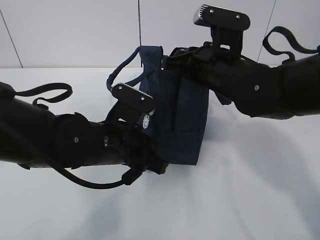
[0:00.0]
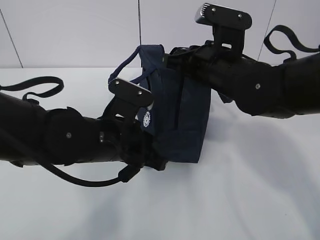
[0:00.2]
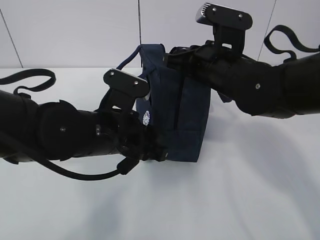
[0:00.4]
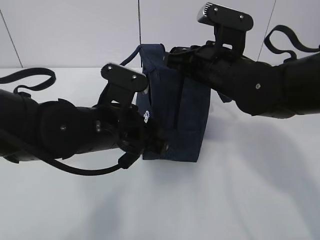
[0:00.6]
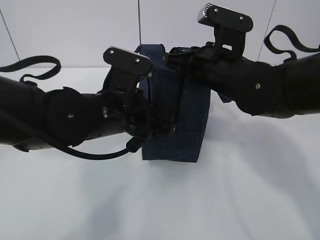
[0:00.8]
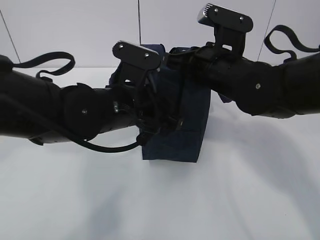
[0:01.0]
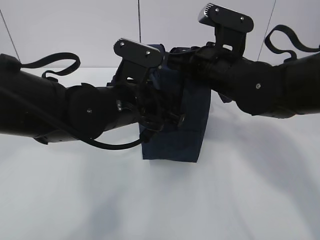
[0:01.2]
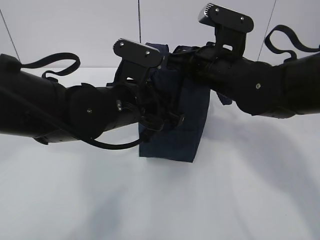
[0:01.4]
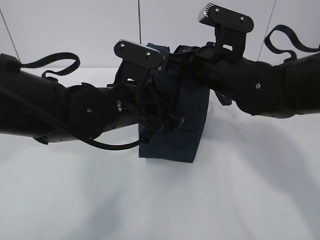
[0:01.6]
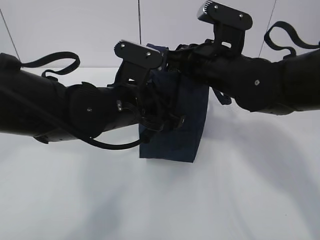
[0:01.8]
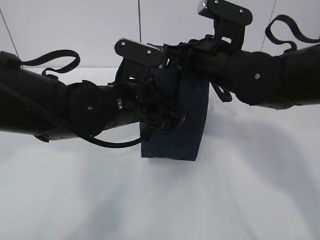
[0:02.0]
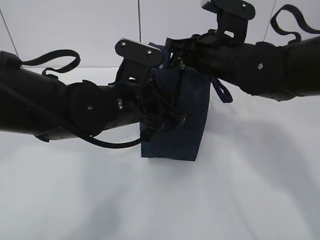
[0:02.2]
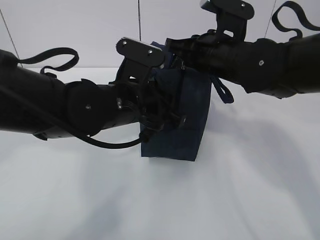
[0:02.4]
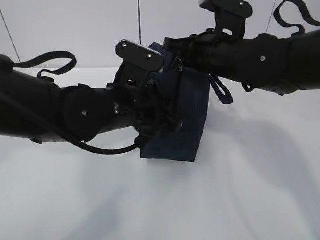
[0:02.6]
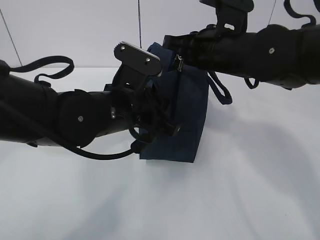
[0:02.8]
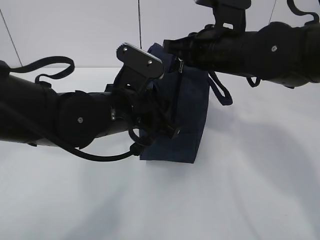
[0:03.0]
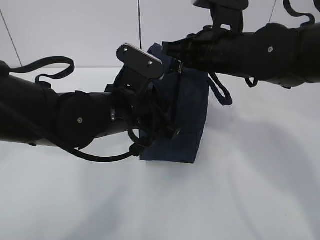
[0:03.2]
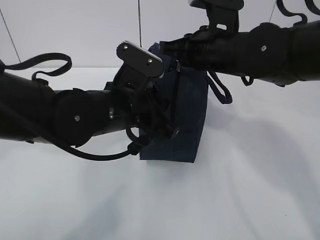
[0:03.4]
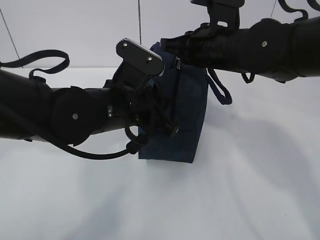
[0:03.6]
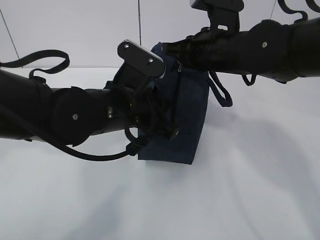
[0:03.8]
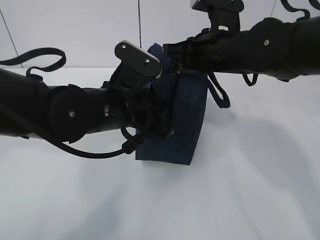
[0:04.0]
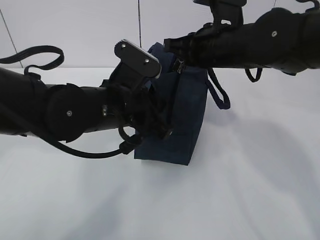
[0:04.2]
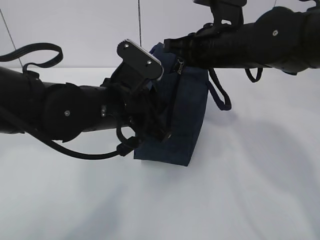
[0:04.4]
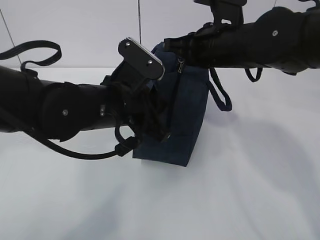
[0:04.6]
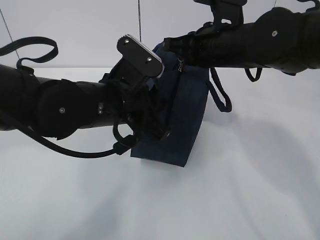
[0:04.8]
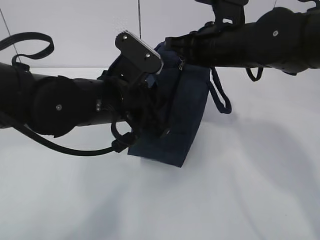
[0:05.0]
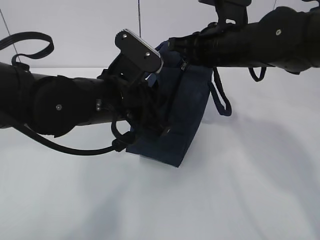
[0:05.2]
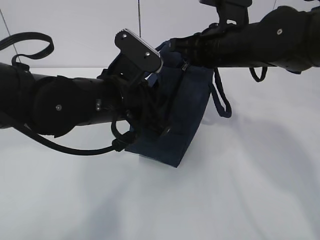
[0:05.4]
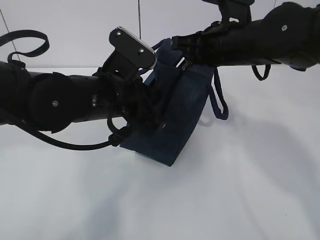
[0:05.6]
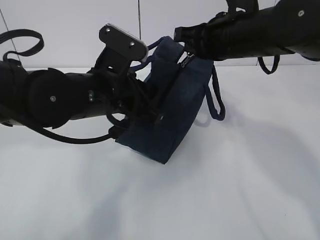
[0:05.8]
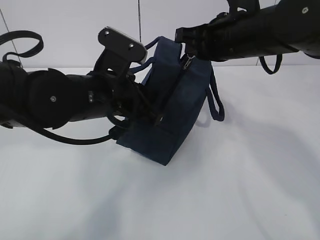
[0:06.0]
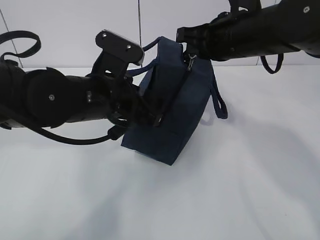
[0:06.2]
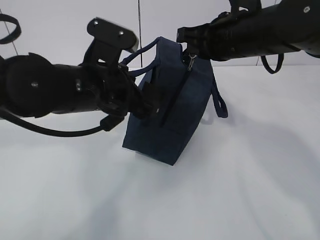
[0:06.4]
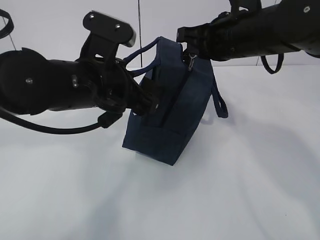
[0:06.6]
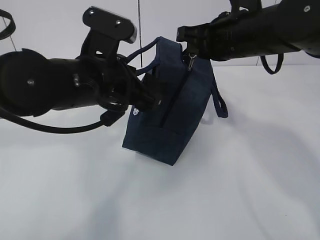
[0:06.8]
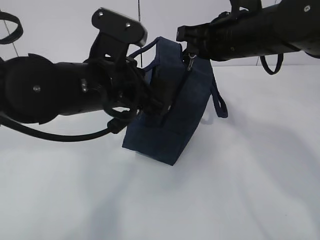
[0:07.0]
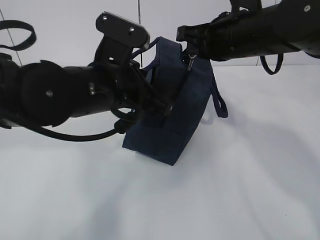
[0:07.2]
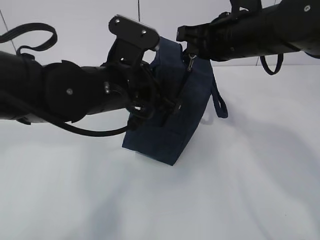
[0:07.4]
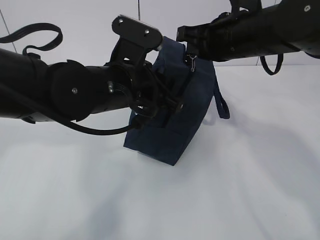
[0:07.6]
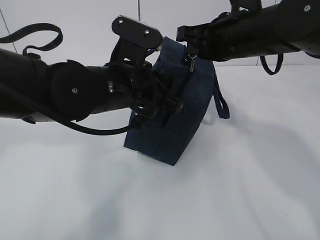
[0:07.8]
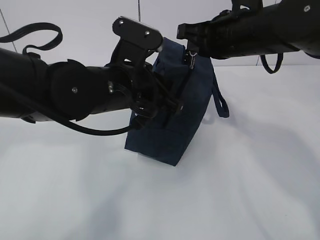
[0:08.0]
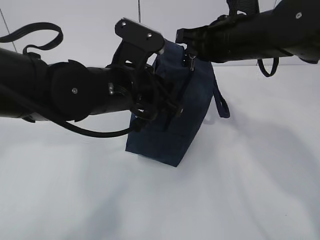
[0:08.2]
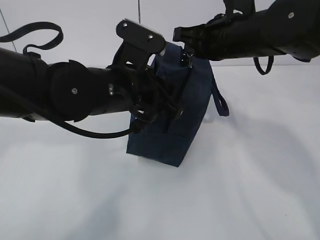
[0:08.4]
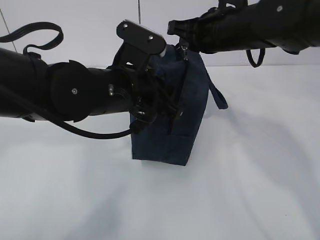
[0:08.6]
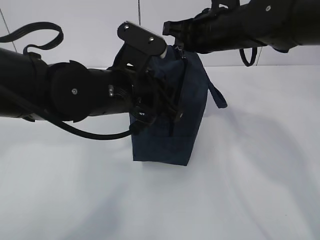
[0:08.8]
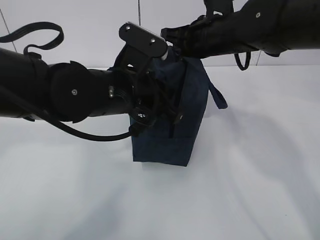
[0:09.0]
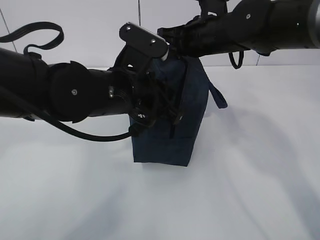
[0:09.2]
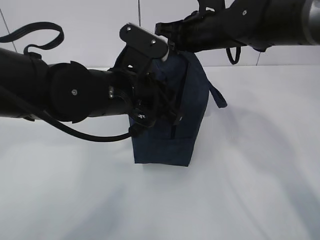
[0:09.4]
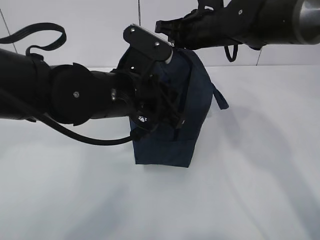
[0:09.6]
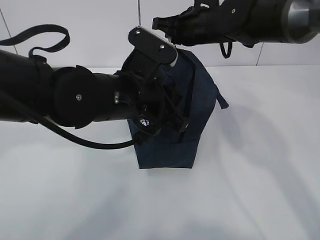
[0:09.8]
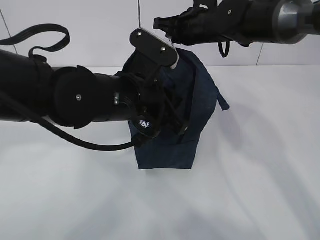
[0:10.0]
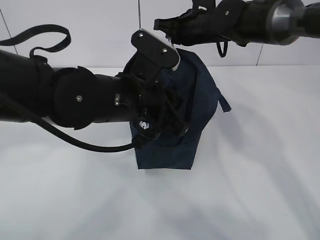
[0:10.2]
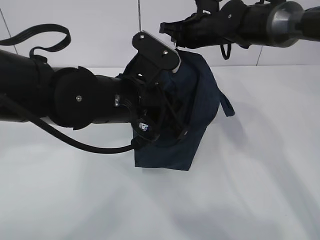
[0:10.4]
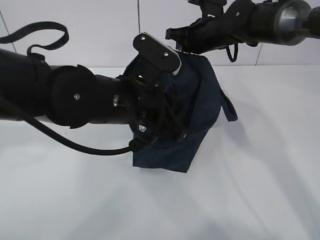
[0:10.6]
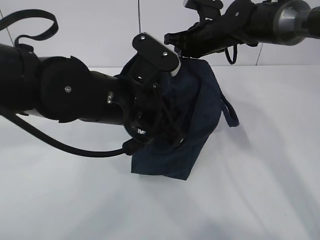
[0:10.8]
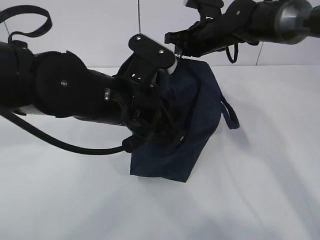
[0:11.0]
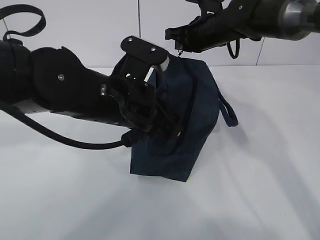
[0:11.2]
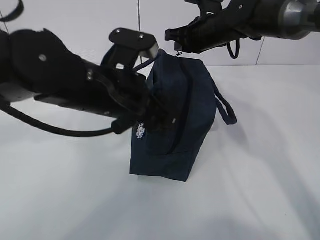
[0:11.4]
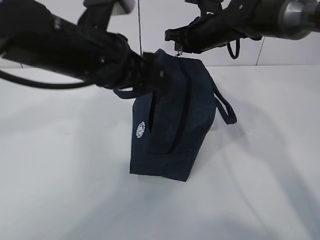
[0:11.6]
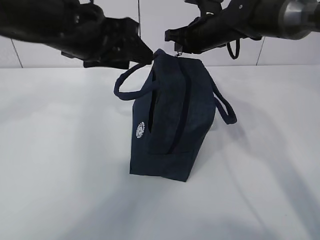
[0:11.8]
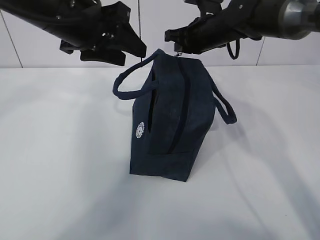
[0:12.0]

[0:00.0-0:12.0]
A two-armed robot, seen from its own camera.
Step, 0:00.0 to 0:03.2: Pull the zipper with your right hand.
Step, 0:03.4 to 0:03.6: Grab the lunch bag with your left hand.
0:00.0 to 0:01.6: The left gripper shifts by roughly 5 cm, and opens and closes again.
0:01.6 to 0:06.0: The grippers stay close to where they were, moving slightly.
0:06.0 to 0:07.6: The left gripper opens and closes again.
0:07.6 to 0:09.0: The right gripper travels forward by some 5 cm.
0:09.0 to 0:10.4: The right gripper is displaced forward by approximately 10 cm.
0:10.4 to 0:12.0: The left gripper shifts roughly 15 cm upward, to the left and forward, and opens up.

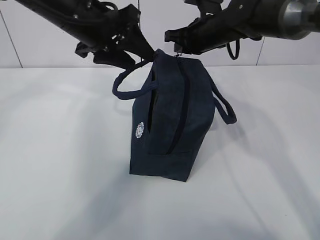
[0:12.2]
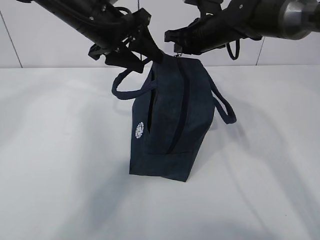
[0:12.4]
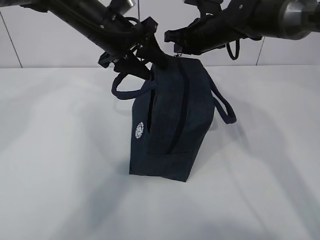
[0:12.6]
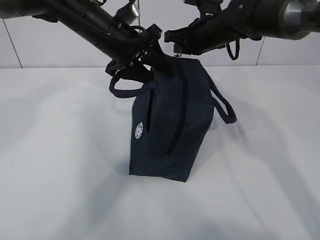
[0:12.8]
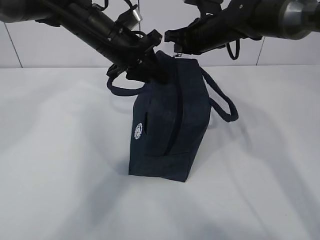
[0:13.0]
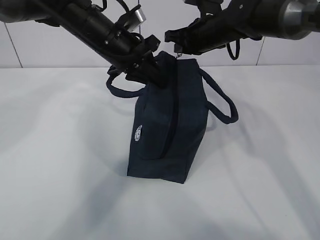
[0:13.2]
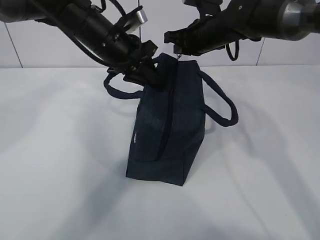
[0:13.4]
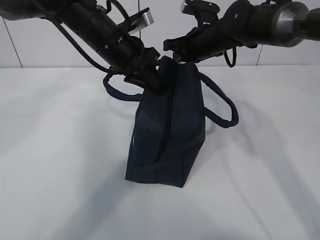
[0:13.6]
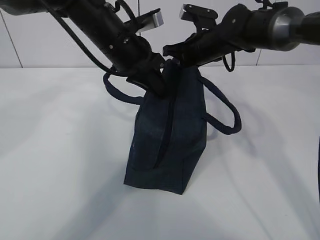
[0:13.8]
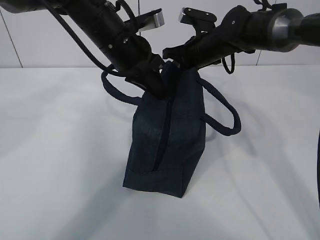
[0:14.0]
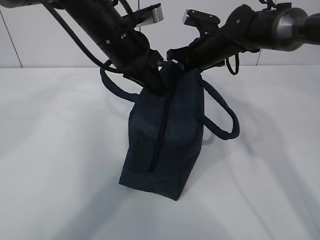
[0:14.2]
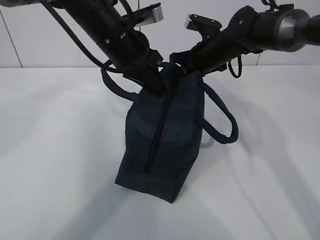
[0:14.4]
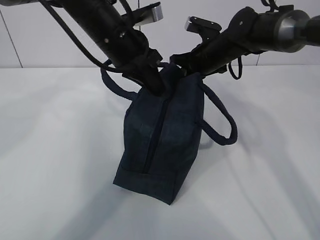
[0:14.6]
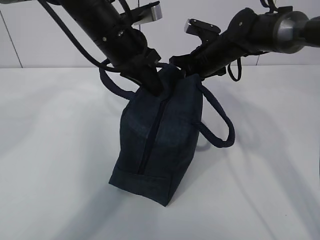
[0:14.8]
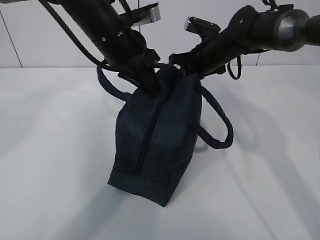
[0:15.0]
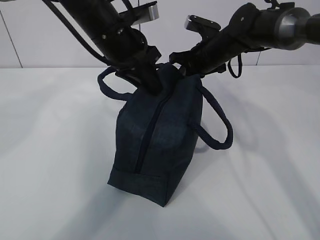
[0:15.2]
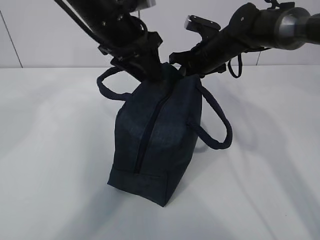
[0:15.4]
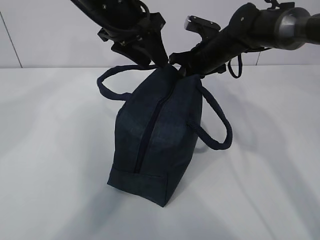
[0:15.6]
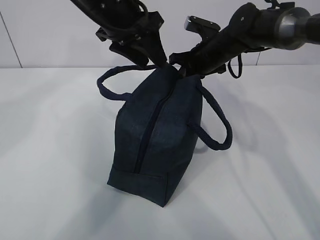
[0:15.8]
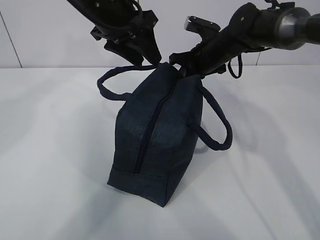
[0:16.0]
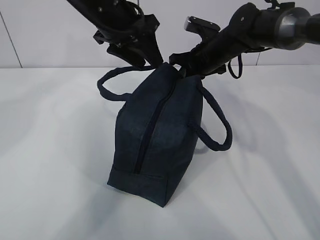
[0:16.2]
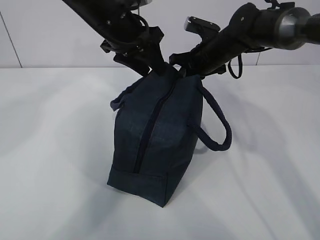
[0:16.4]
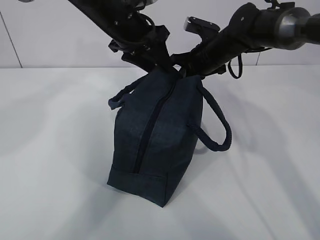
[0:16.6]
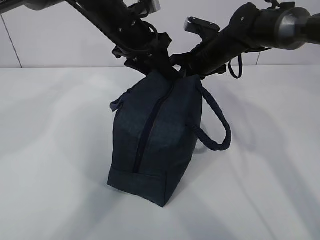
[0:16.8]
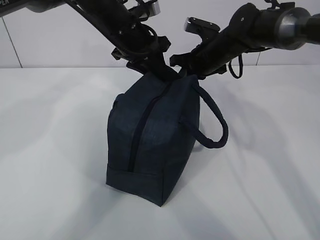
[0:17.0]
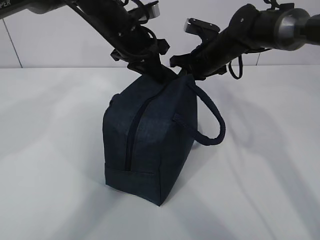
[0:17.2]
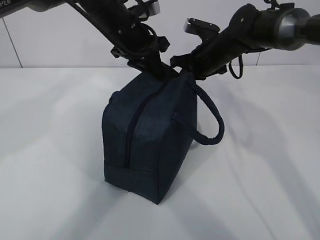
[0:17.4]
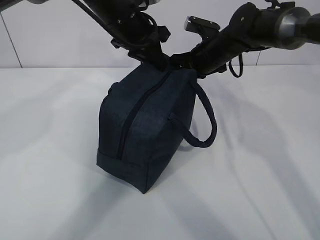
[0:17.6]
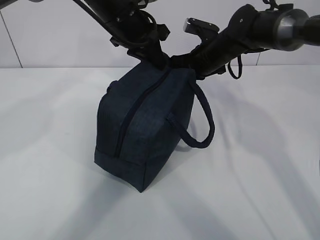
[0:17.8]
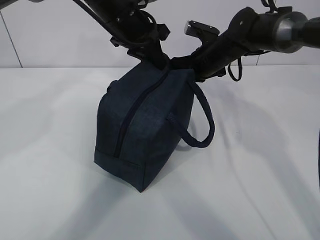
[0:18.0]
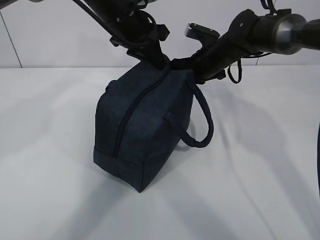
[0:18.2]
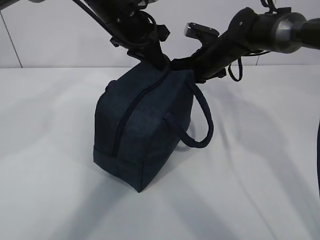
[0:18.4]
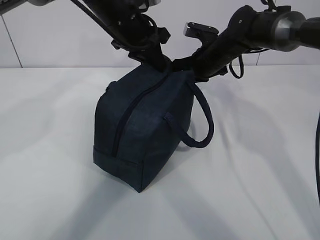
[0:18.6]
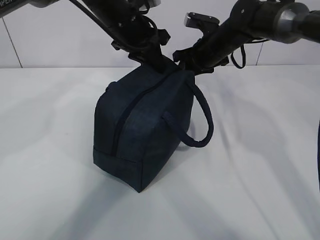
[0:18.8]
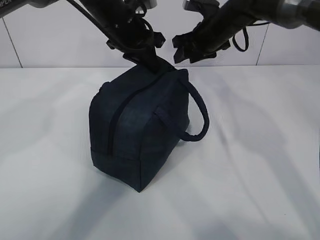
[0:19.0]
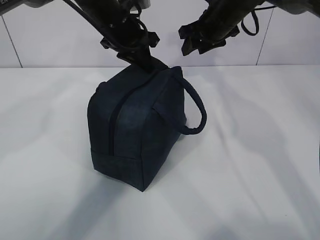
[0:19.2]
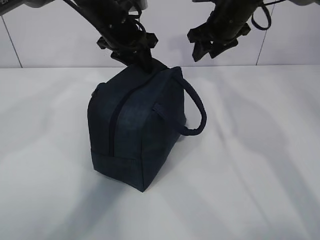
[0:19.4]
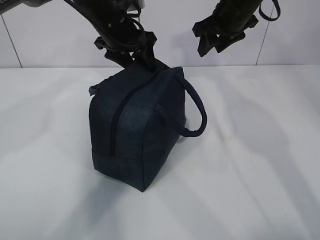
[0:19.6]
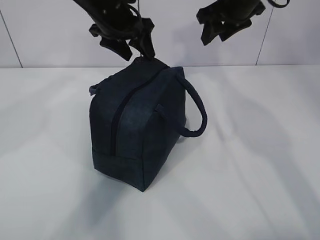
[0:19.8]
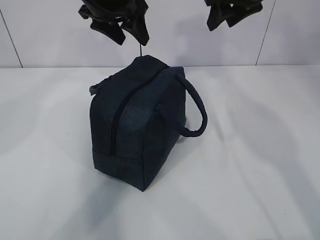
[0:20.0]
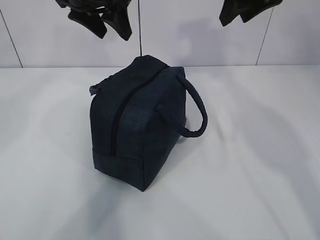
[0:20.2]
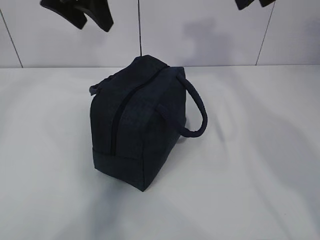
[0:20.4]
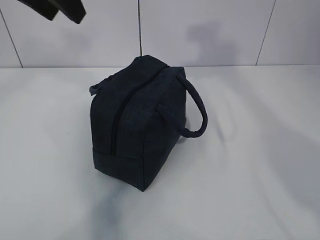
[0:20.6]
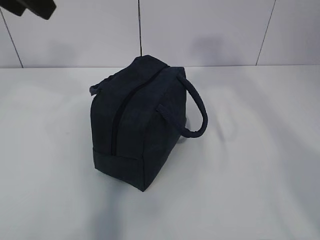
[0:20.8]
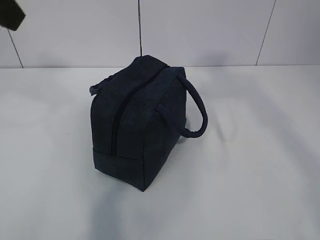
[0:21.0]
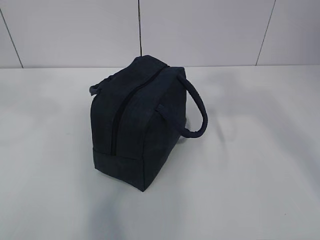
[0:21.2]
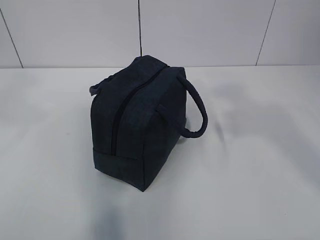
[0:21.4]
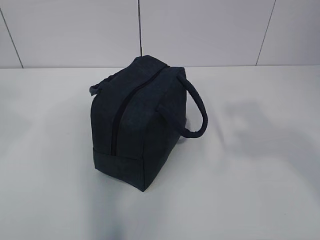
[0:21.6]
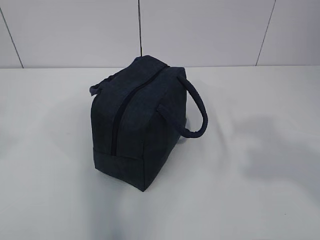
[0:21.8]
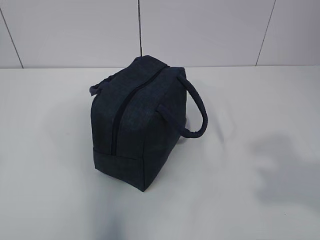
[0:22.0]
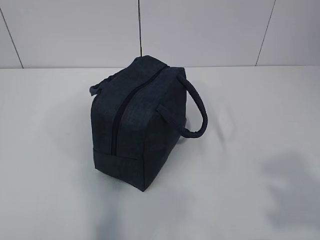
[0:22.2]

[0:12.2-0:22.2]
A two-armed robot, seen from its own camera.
0:12.2 to 0:13.6: The left gripper travels downward by some 5 cm, and closes up.
0:13.6 to 0:15.0: The grippers move only a little.
0:15.0 to 0:16.4: The left gripper opens its fingers.
0:16.4 to 0:18.0: The left gripper closes its fingers.
0:18.0 to 0:19.4: The left gripper opens up. Meanwhile the right gripper moves upward, approximately 10 cm, and opens up.
0:19.4 to 0:20.8: The right gripper moves backward and upward, approximately 30 cm; the left gripper moves backward, upward and to the left, roughly 25 cm.
0:20.8 to 0:22.2: The right gripper moves backward, roughly 30 cm. Meanwhile the left gripper travels backward and to the left by some 30 cm.
